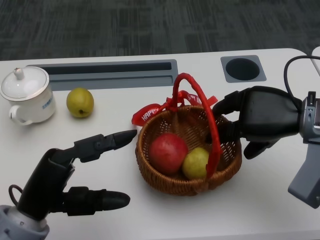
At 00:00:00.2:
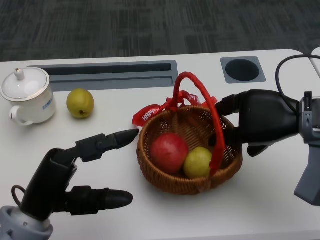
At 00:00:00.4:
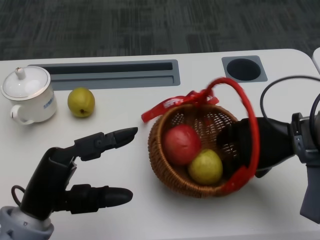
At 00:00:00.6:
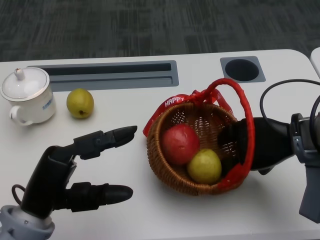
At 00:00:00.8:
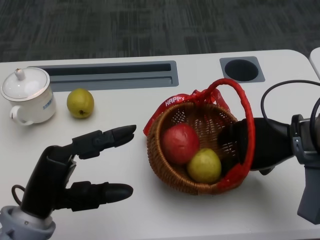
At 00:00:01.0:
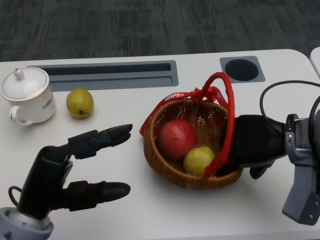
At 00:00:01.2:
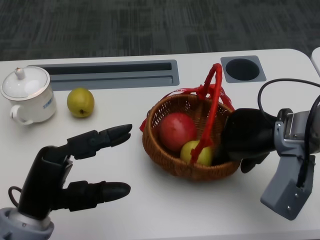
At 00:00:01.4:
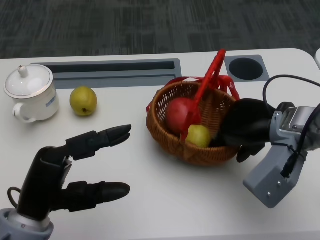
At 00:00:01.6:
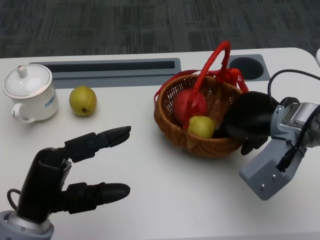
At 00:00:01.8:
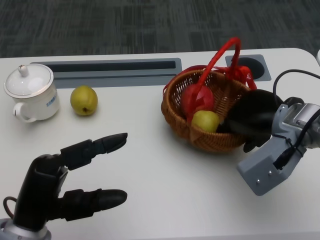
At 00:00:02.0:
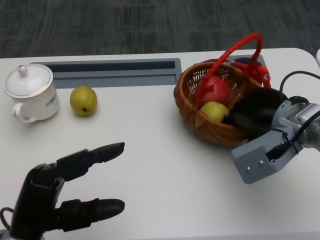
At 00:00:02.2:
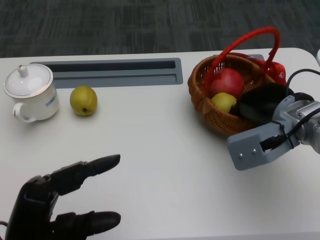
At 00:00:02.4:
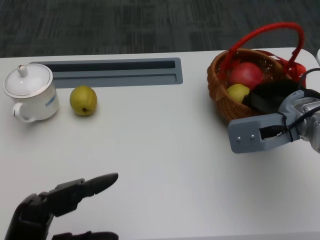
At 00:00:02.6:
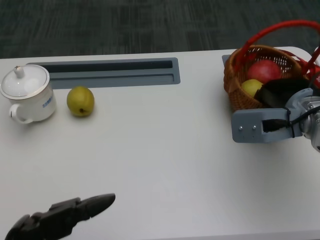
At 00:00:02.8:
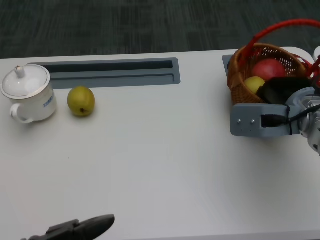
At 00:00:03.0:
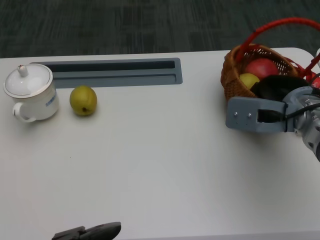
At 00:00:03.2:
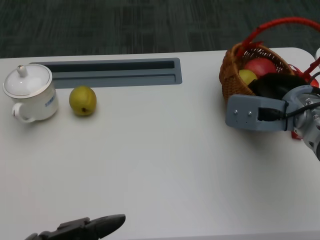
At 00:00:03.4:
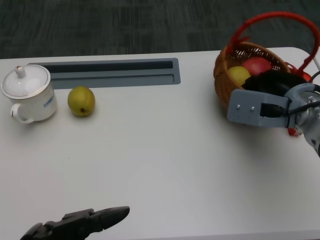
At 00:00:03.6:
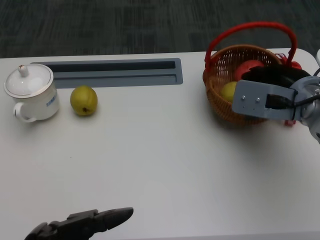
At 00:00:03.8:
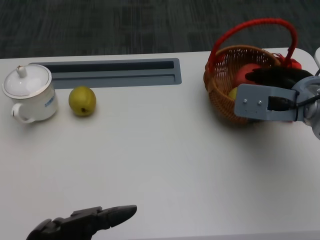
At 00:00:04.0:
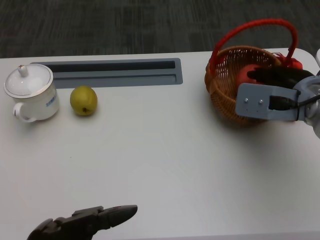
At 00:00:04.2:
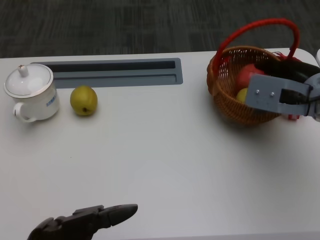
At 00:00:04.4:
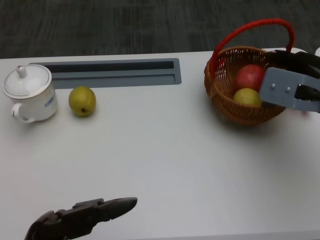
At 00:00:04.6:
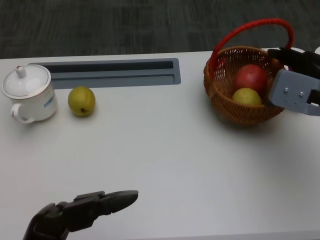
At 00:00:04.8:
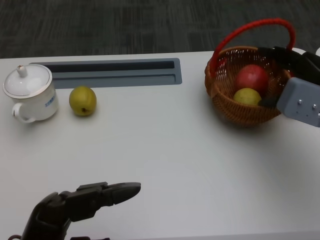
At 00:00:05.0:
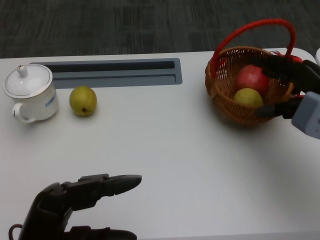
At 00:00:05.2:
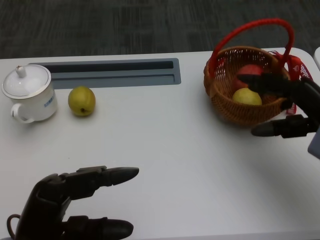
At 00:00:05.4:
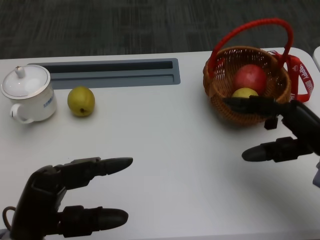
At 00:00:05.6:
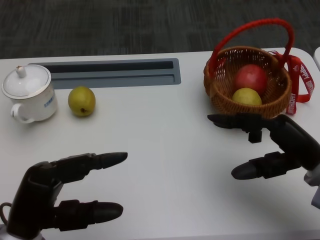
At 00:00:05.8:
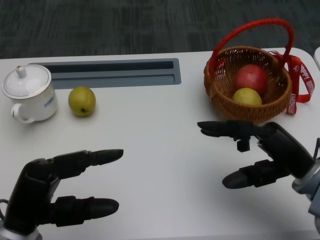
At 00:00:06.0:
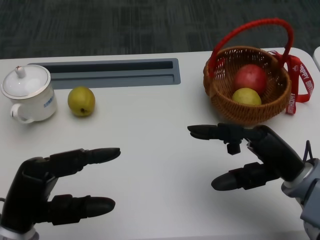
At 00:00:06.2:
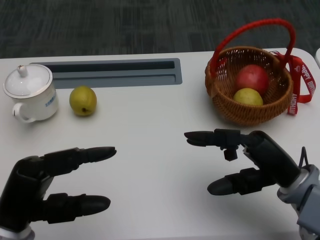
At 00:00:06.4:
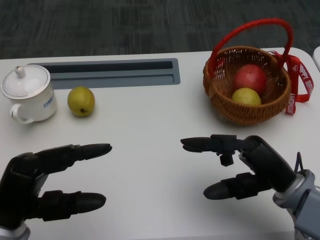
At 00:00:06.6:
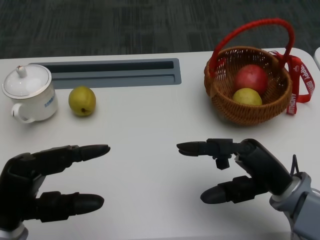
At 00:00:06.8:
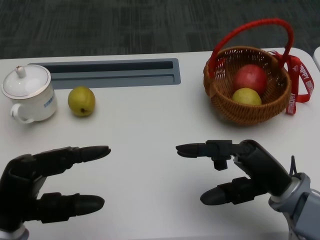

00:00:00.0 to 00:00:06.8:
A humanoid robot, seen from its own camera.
Step, 00:00:00.0 to 00:00:01.4: Move the basket to the front of the table with the right gripper.
00:00:01.4 to 00:00:02.8: The left hand is displaced backward by roughly 10 cm.
00:00:02.8 to 00:00:04.0: The hands move only a little.
00:00:04.0 to 00:00:05.4: The right hand is displaced backward by roughly 5 cm. Meanwhile the left hand is displaced forward by about 5 cm.
00:00:05.4 to 00:00:06.8: The right hand shifts roughly 5 cm to the left.
